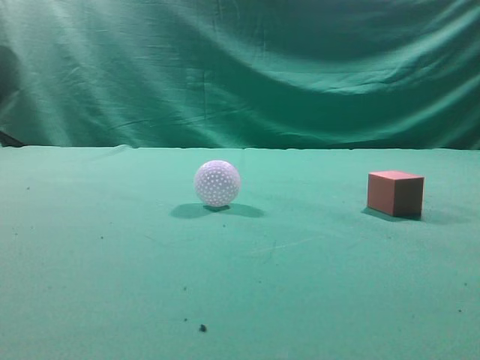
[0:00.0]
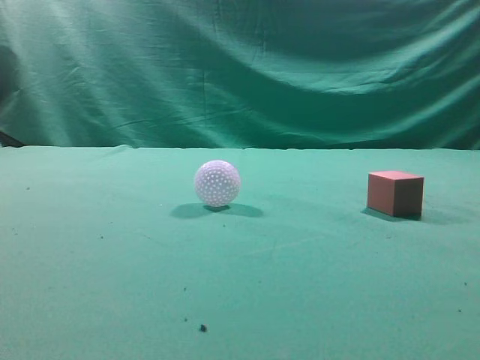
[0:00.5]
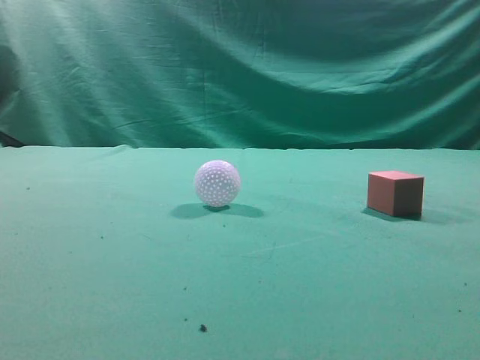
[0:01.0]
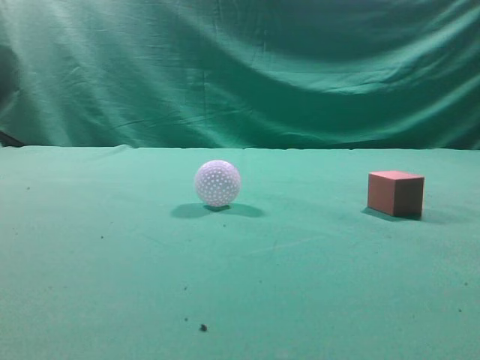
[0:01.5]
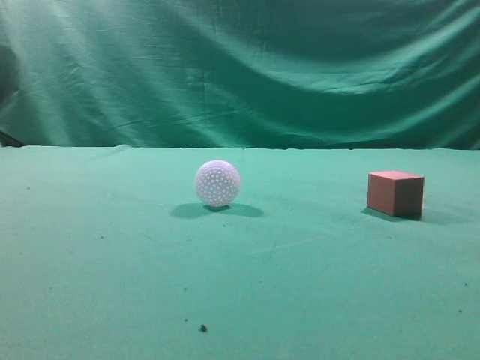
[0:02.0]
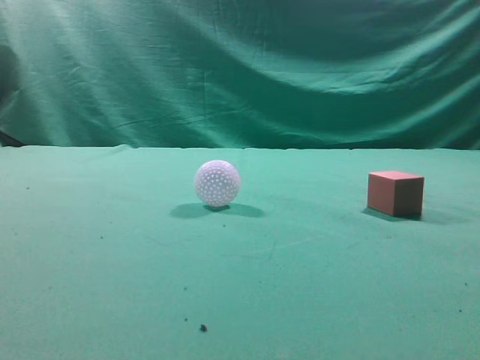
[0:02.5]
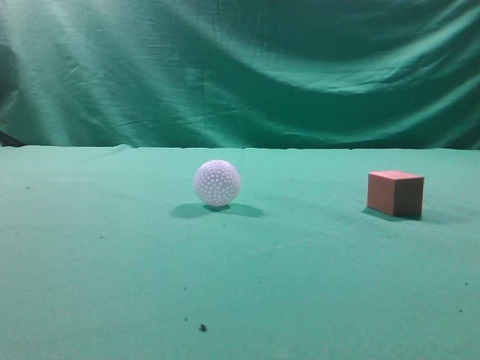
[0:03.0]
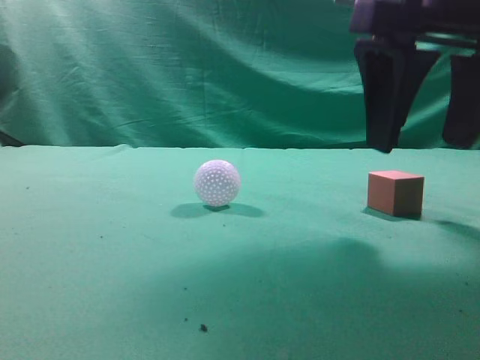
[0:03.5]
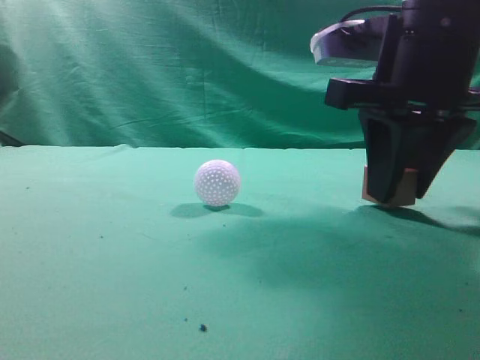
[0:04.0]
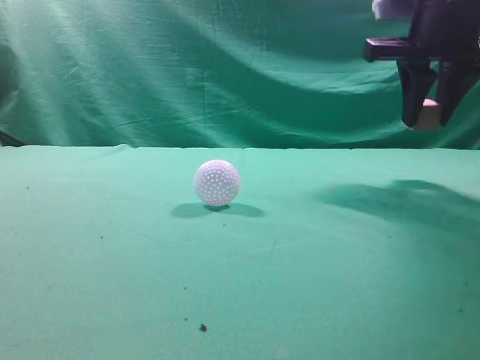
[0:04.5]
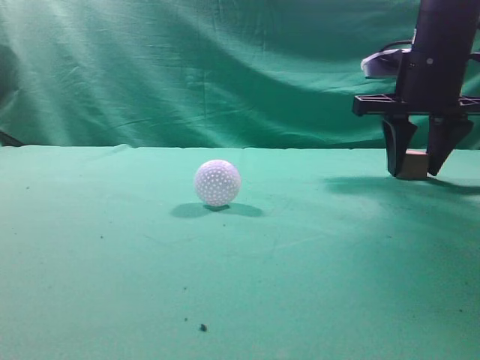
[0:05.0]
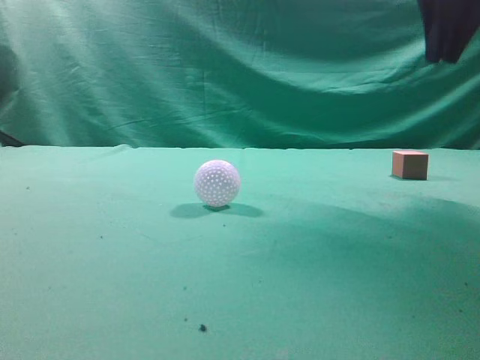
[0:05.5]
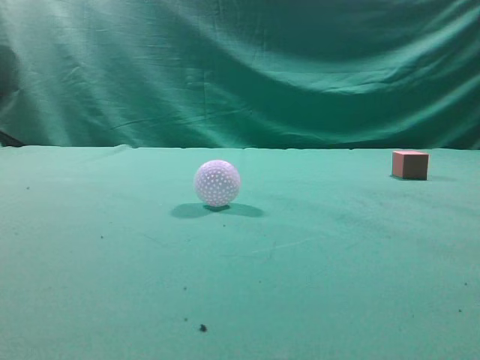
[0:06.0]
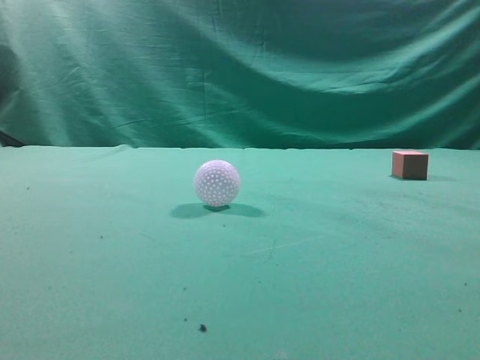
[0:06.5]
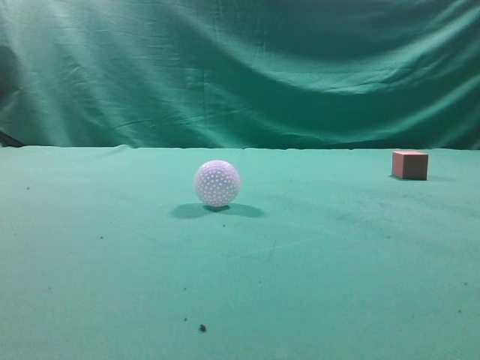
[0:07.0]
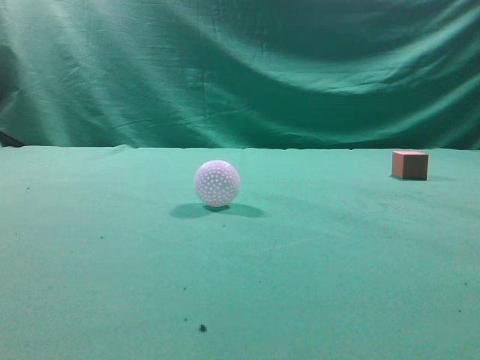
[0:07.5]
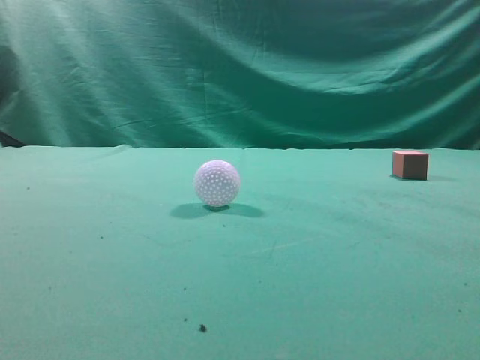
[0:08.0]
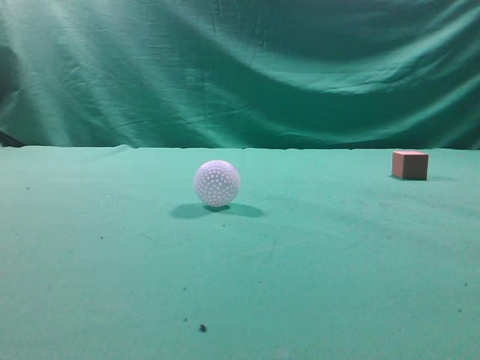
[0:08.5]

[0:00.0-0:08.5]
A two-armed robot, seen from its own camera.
Task of the whole recording: pick up the cube block and place it in another position on the table.
Step, 0:00.0 to 0:04.0: Pick up the small cube.
Step, 0:04.5 to 0:05.0: Place the small cube on the ahead of the table.
0:02.0 to 0:04.0: The right gripper moves forward, downward and to the left, some 30 cm, and opens.
0:04.0 to 0:06.5: The right gripper goes some 25 cm backward, upward and to the right, and closes up.

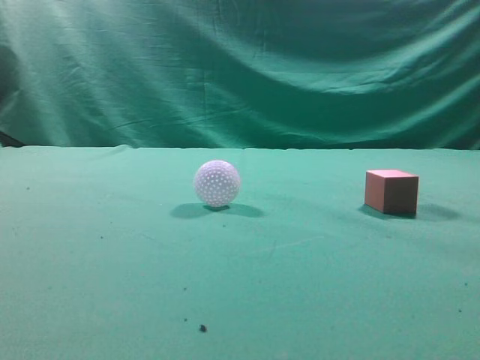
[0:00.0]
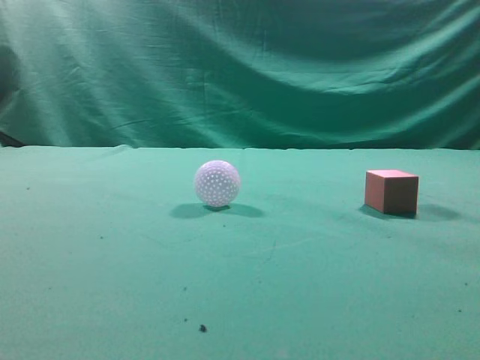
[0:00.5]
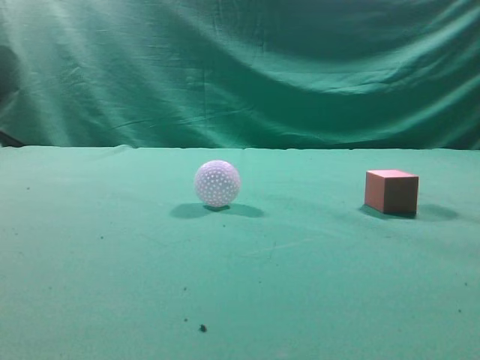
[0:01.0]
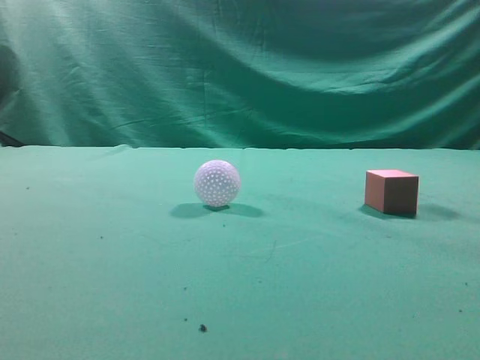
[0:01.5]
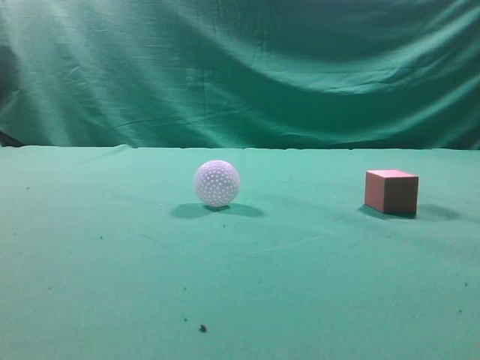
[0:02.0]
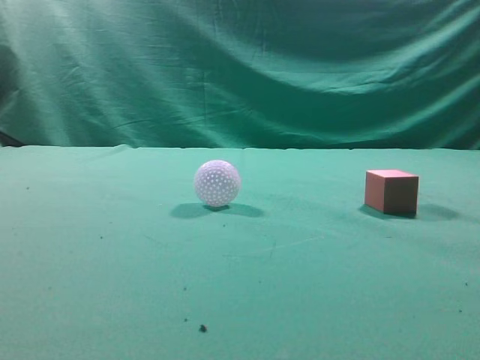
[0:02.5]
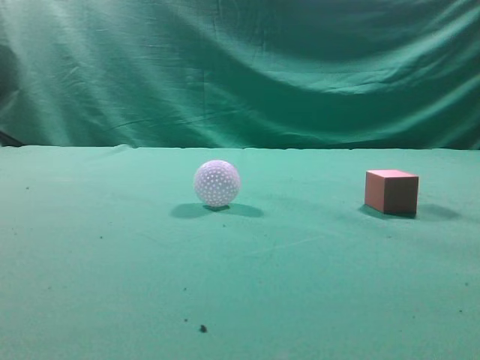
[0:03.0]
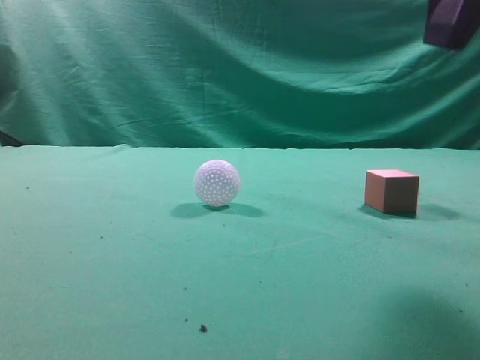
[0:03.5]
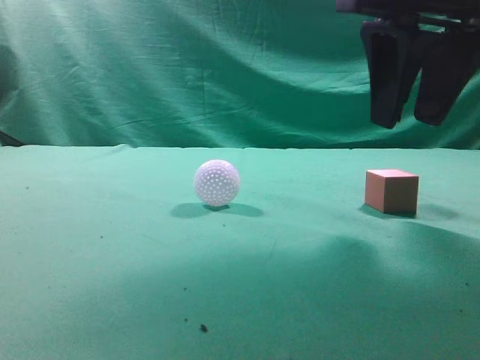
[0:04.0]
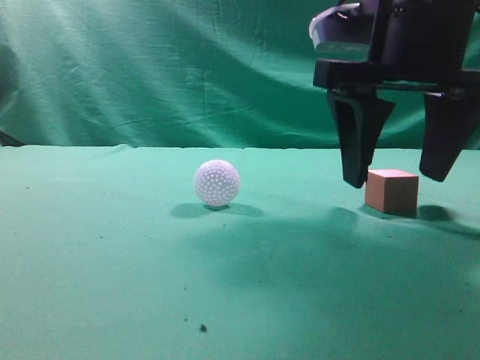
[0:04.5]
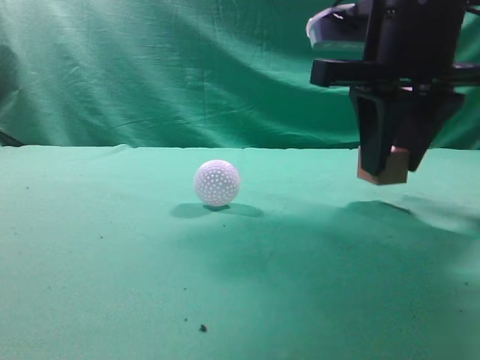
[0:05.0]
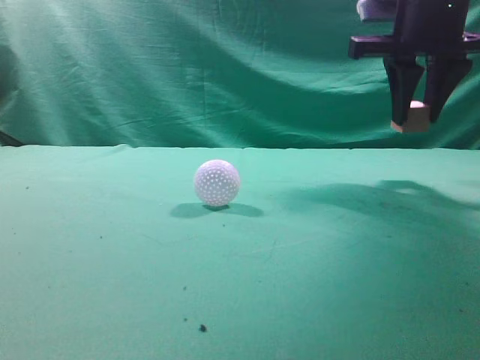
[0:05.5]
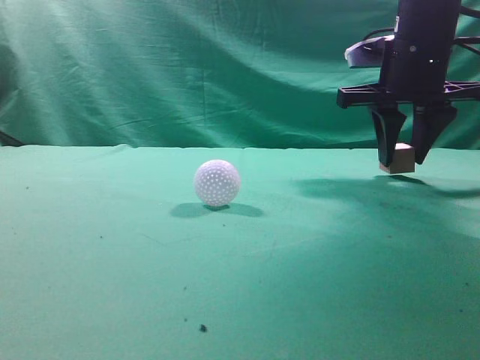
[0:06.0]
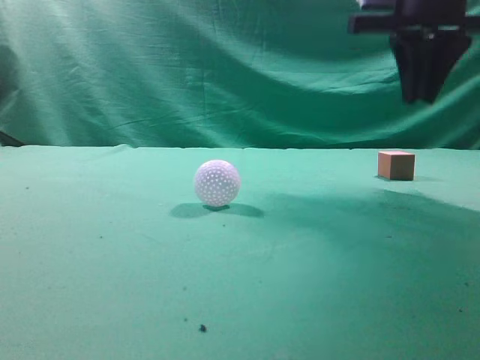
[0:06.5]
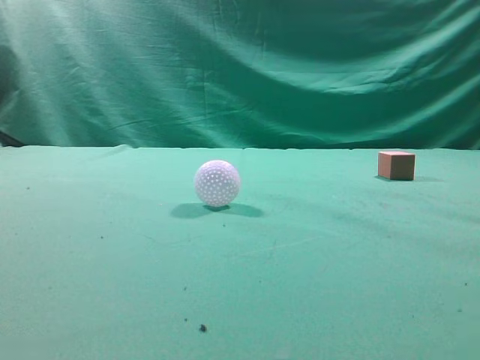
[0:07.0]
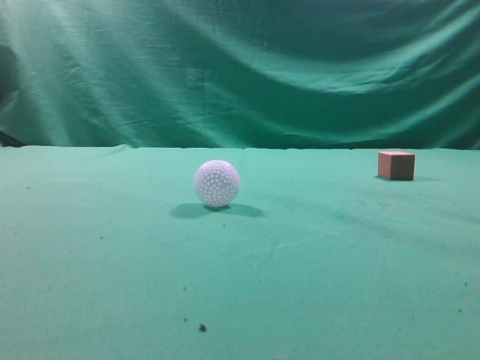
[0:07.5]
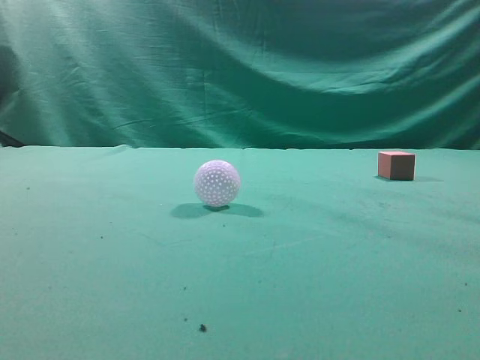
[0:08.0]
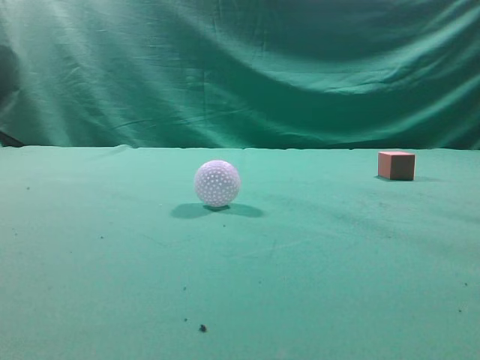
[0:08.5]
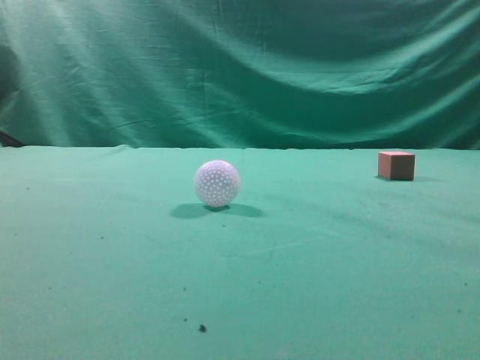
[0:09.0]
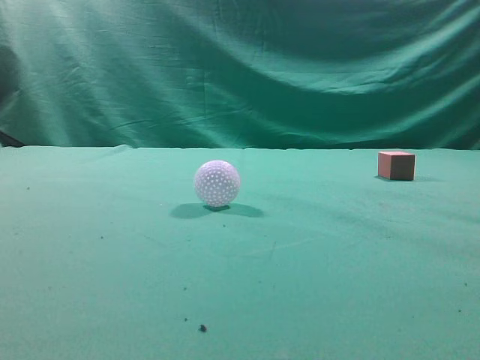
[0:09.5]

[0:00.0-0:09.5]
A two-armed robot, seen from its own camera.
Task of the whole recording: pick up the cube block and place it in another position on the table.
Step, 0:00.0 to 0:05.0: Pick up the small cube.
Step, 0:05.5 to 0:06.0: Place the small cube on the ahead of the table.
0:02.0 to 0:04.0: The right gripper moves forward and to the left, about 25 cm, and opens its fingers.
0:04.0 to 0:05.5: The right gripper moves forward, roughly 10 cm, and closes up.
0:05.5 to 0:07.5: The right gripper moves backward and upward, roughly 30 cm, and closes.
